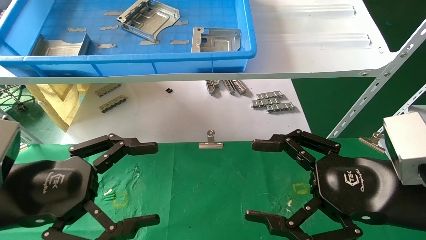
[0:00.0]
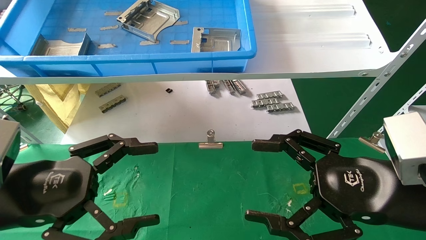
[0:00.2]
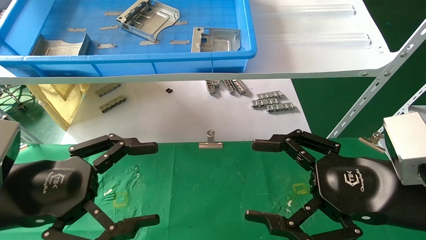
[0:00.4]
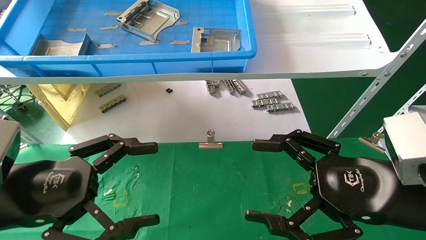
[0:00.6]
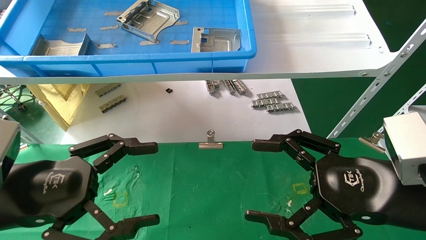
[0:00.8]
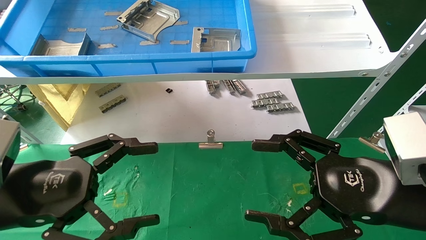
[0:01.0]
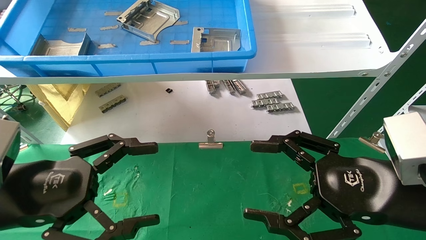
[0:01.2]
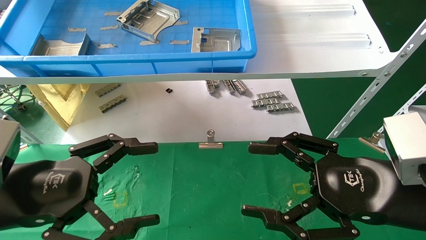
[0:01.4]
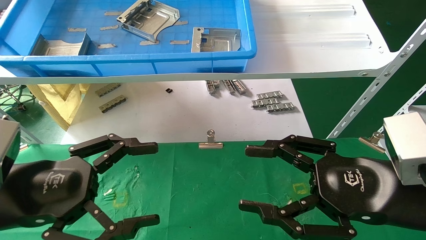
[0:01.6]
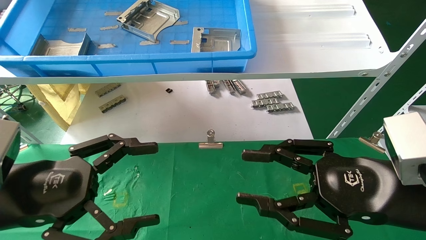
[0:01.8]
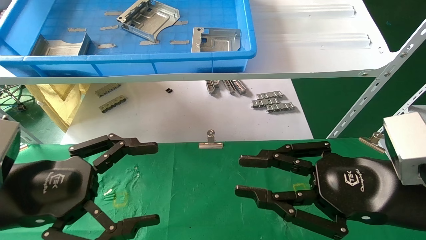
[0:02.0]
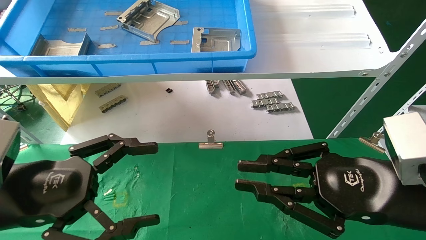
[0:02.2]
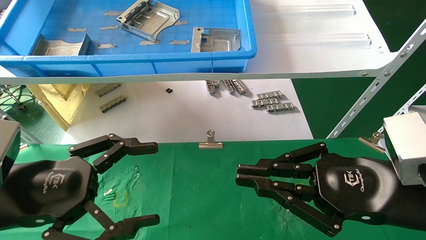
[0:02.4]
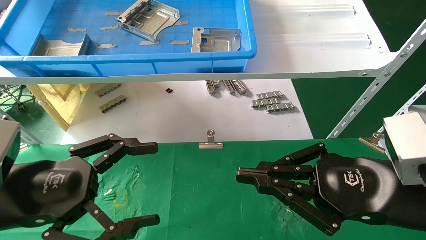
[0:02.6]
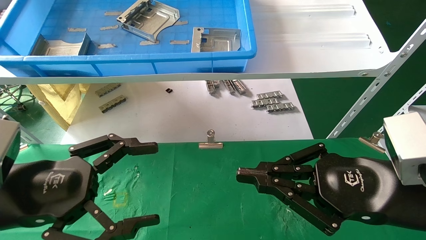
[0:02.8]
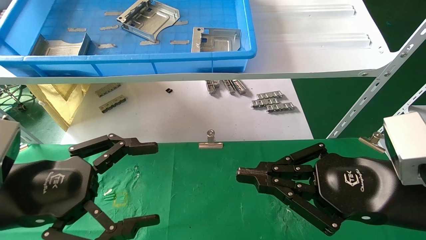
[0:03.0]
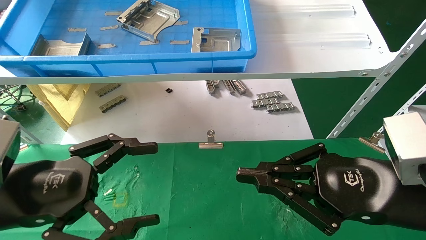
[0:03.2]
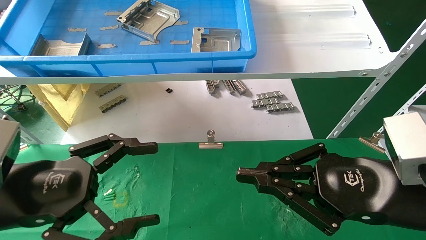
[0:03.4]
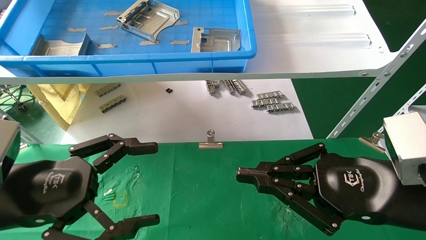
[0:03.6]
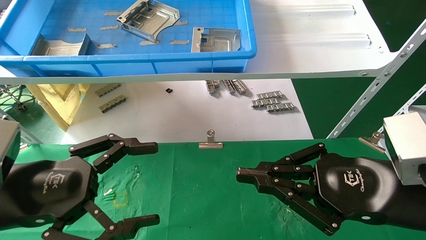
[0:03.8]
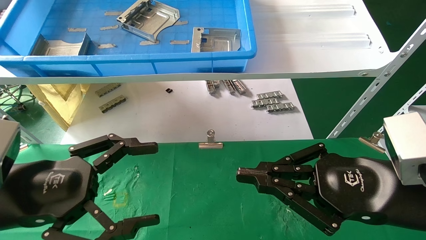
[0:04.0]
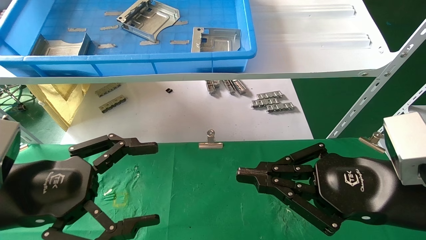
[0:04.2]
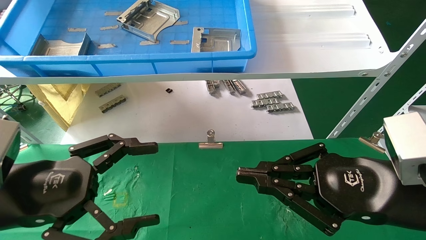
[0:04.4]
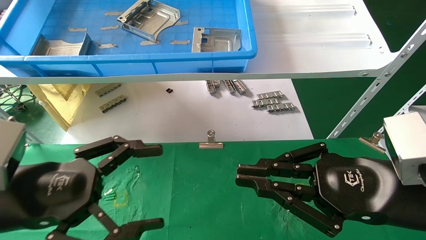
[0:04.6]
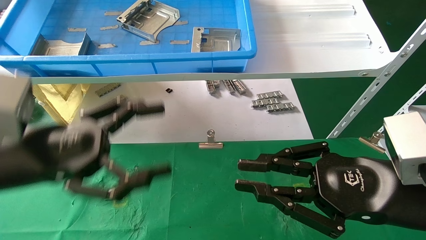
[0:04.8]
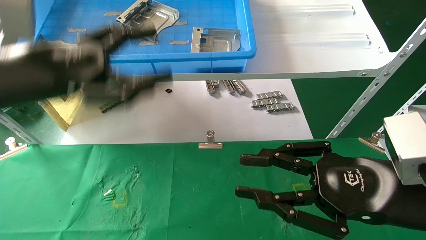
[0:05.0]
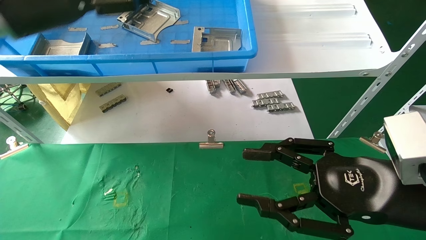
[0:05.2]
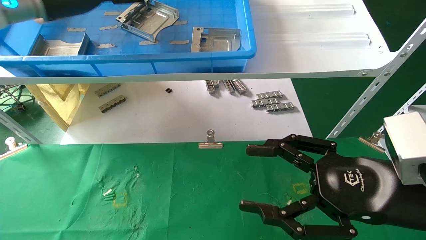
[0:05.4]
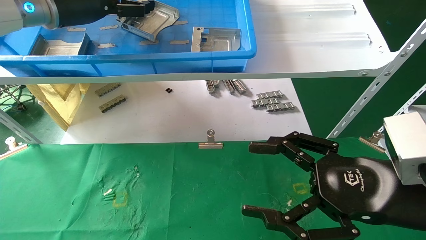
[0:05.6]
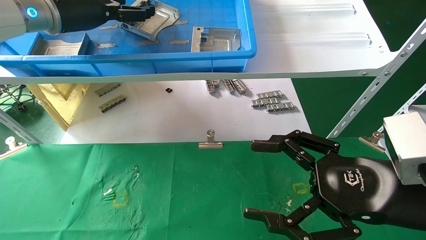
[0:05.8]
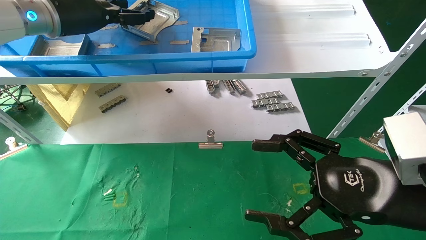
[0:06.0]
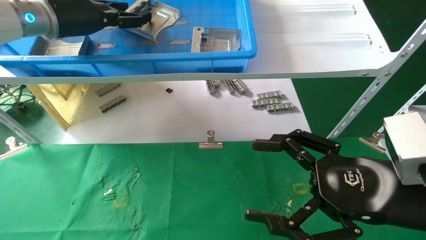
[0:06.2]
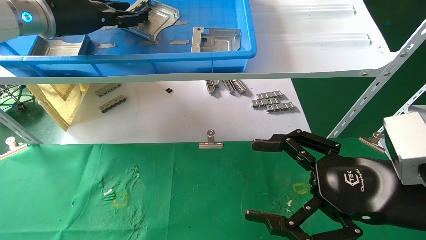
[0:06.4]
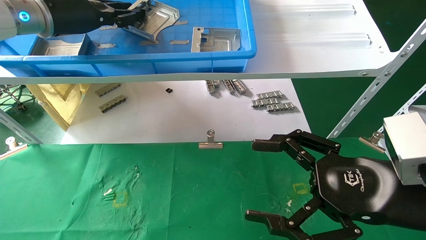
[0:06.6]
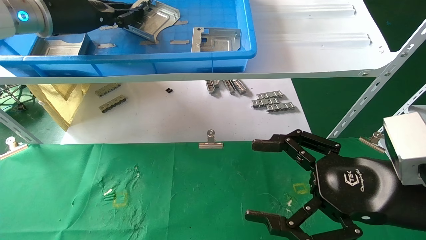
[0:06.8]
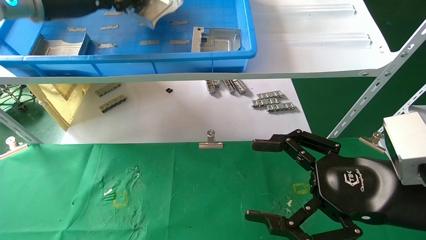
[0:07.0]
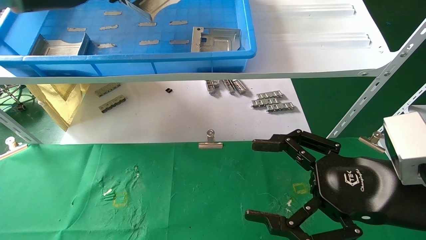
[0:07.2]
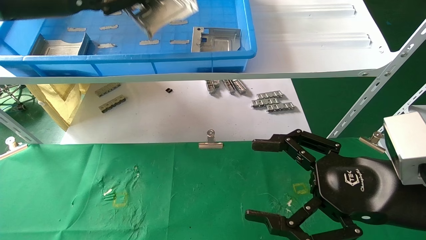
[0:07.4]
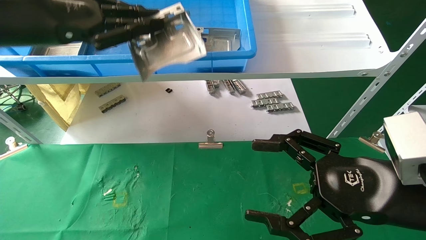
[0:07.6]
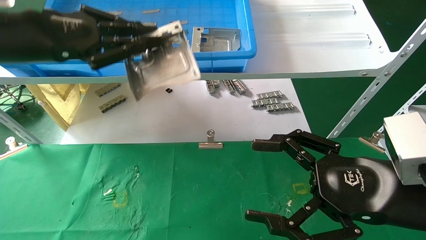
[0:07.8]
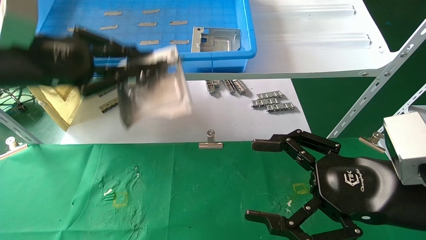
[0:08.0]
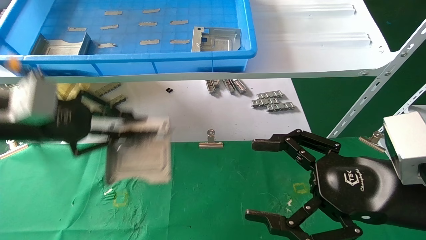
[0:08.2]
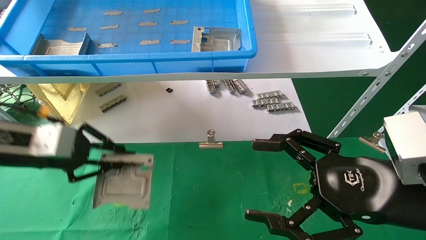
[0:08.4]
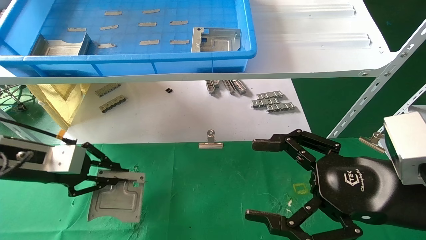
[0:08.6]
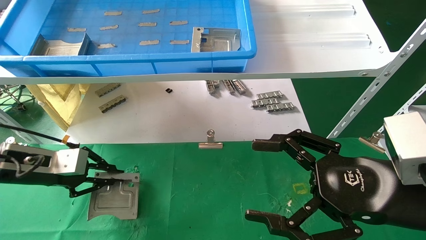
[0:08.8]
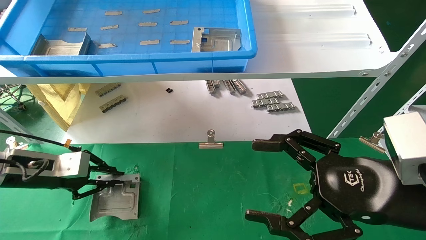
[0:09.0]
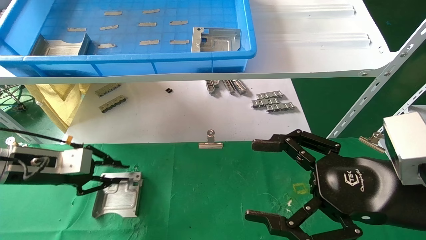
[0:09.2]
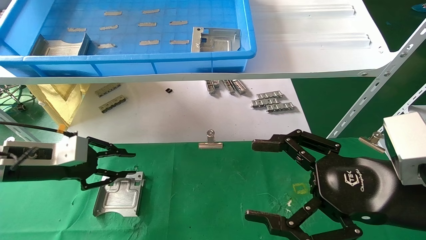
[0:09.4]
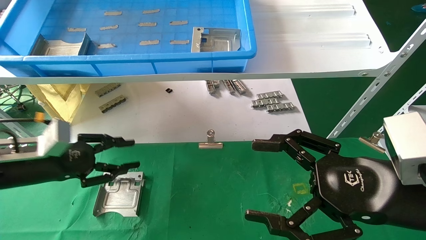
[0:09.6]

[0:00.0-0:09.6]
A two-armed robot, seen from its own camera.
Task of the whole recording: use the mechanical arm to pick up the parts and place them on the table.
Step, 0:04.8 to 0:06.8: Pick up the hard drive bracket from the feeding area.
Step, 0:07.0 to 0:09.4: Place the hard drive bracket into the box.
0:00.0 to 0:01.6: The two grippers keep their place.
0:01.6 to 0:03.2: The right gripper closes up.
0:03.2 to 0:04.8: The left gripper goes roughly 5 cm upward.
0:04.8 to 0:06.4: The right gripper opens up. The left gripper heads forward and upward, covering some 25 cm, and closes its fingers.
0:06.4 to 0:08.0: The left gripper travels backward and downward by roughly 15 cm, and closes up.
0:08.0 to 0:09.6: The left gripper goes about 20 cm downward.

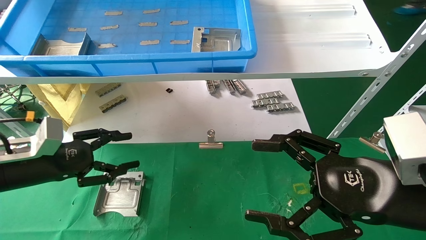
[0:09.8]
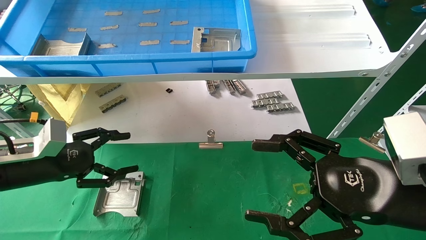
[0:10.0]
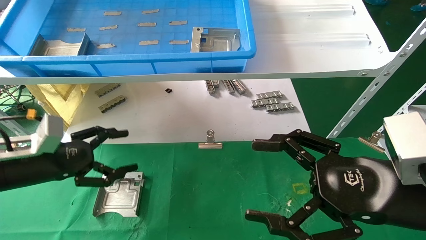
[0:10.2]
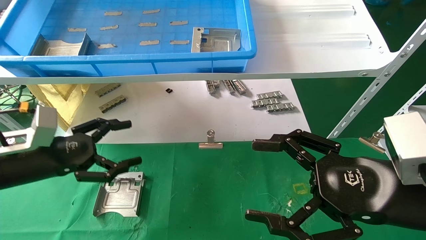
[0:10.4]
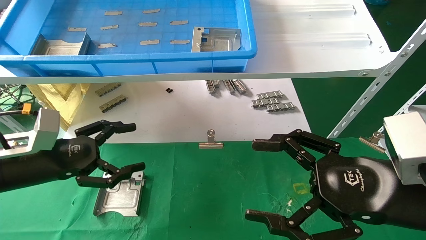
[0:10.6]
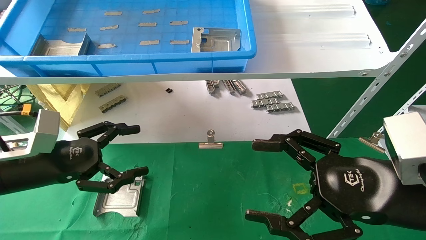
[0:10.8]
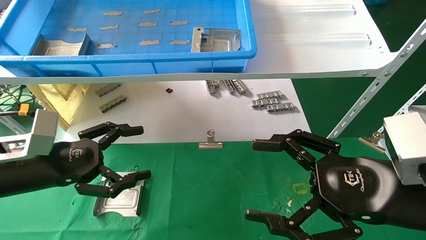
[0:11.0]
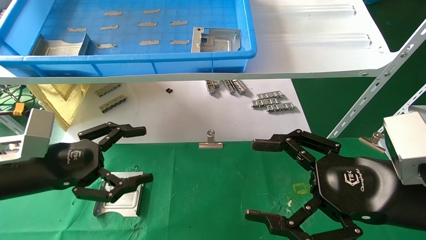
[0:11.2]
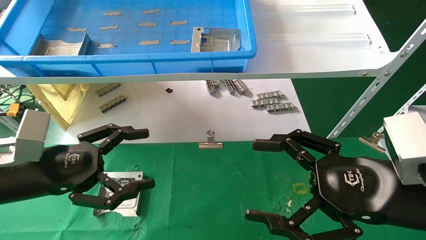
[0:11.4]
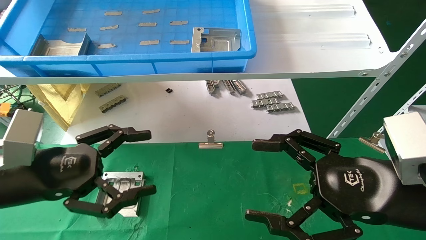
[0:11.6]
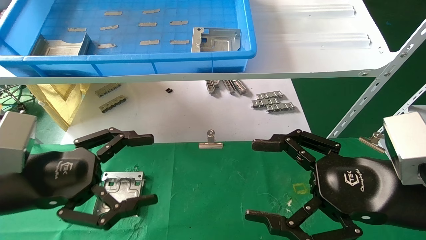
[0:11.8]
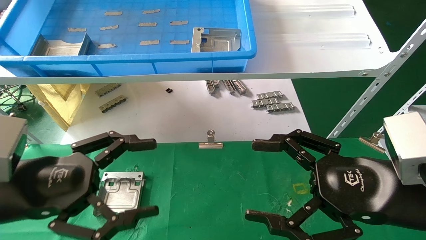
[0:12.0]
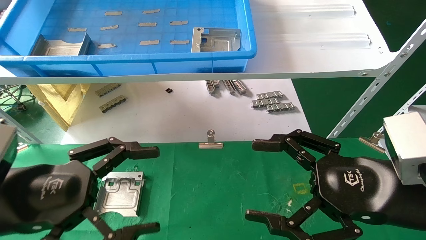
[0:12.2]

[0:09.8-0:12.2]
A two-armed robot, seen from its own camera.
Task of the whole recording: use the mechanical arm to pick up the parts and place them on the table.
0:09.8 to 0:11.0: The left gripper changes place by roughly 5 cm, and opens up.
0:11.0 to 0:12.2: The left gripper travels backward by about 10 cm.
